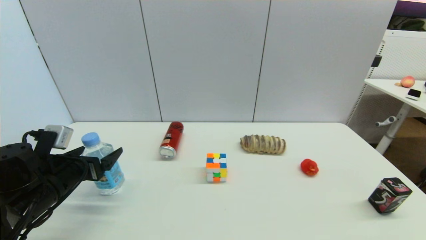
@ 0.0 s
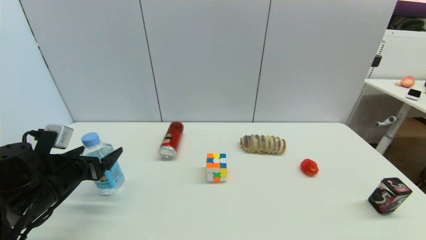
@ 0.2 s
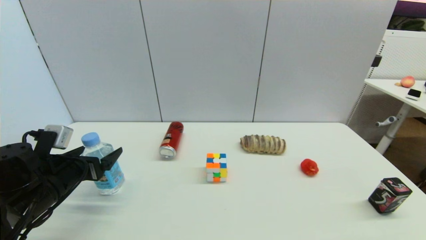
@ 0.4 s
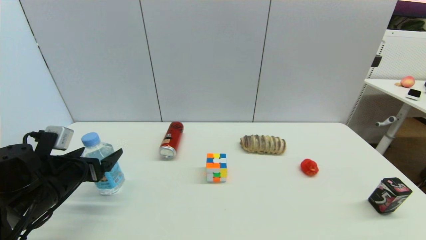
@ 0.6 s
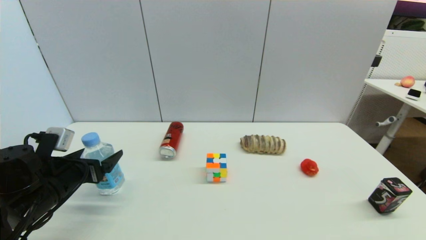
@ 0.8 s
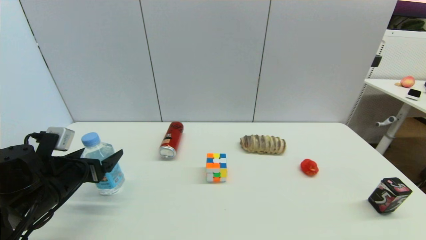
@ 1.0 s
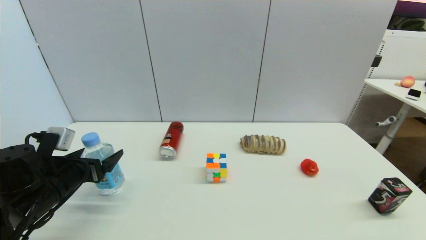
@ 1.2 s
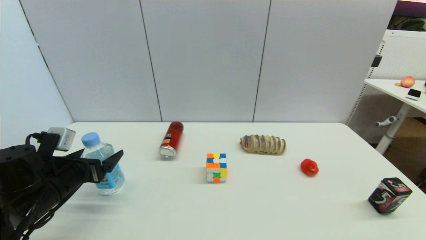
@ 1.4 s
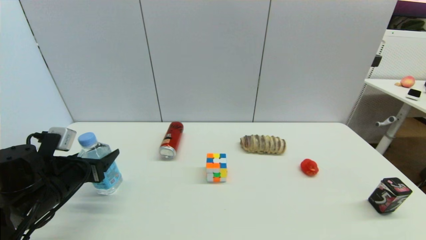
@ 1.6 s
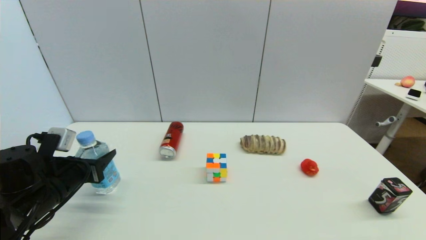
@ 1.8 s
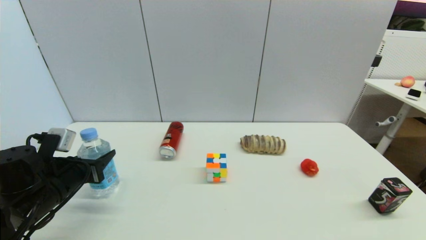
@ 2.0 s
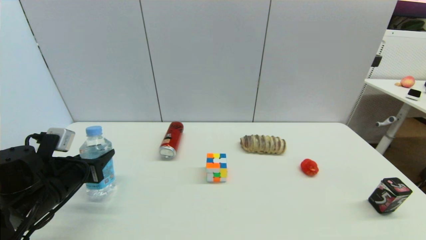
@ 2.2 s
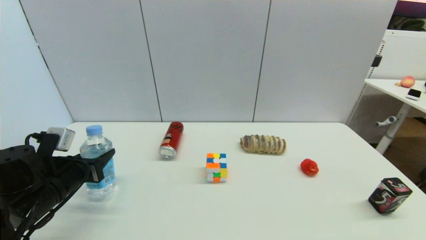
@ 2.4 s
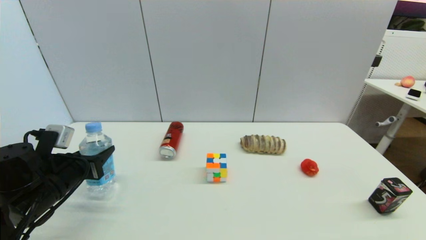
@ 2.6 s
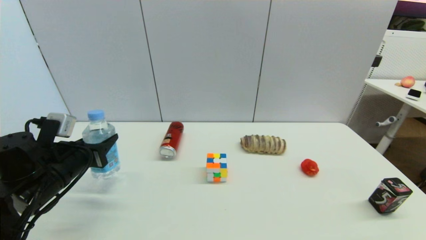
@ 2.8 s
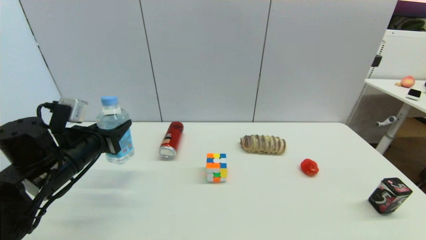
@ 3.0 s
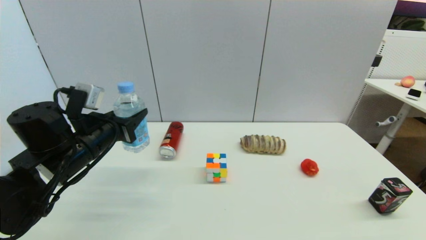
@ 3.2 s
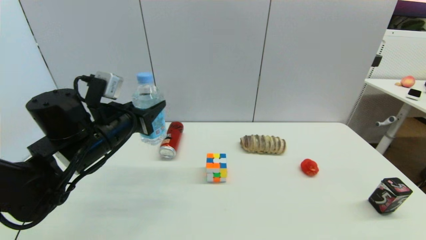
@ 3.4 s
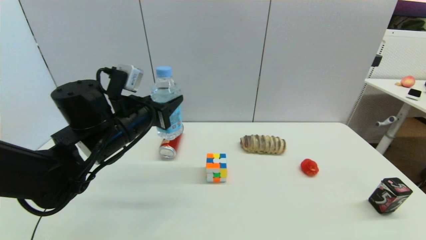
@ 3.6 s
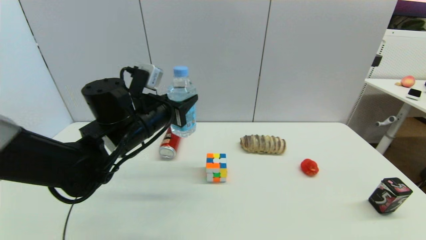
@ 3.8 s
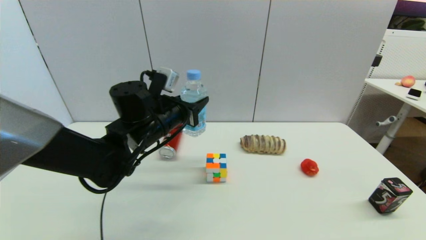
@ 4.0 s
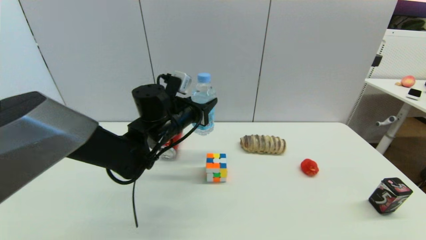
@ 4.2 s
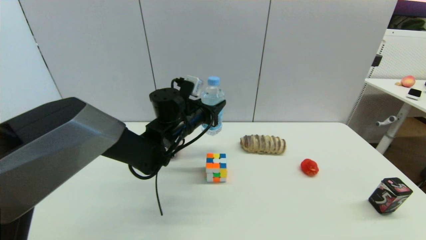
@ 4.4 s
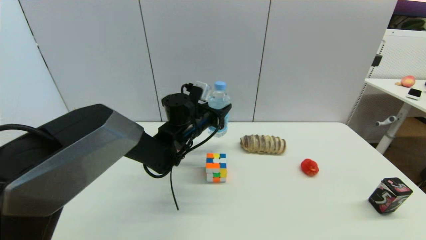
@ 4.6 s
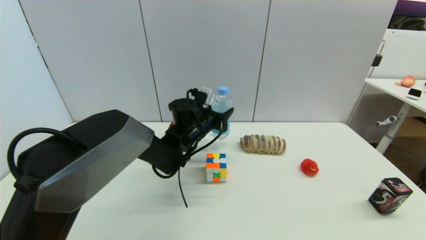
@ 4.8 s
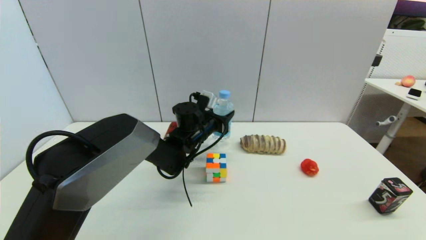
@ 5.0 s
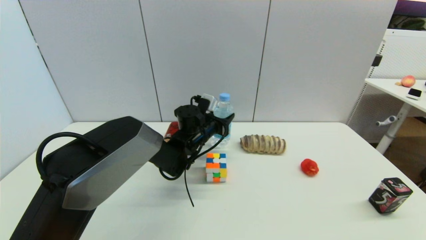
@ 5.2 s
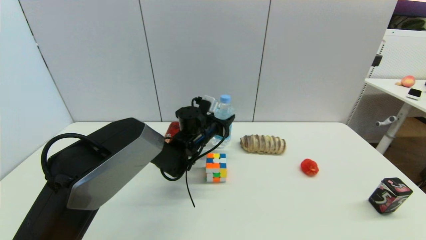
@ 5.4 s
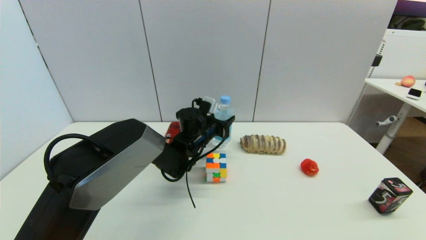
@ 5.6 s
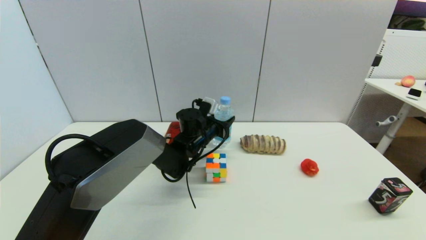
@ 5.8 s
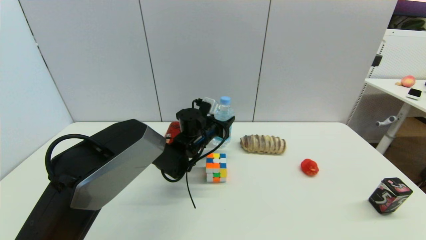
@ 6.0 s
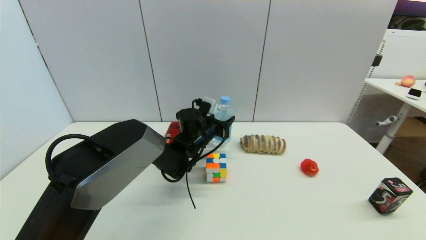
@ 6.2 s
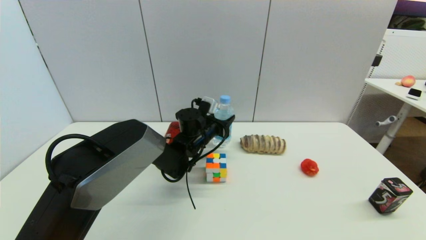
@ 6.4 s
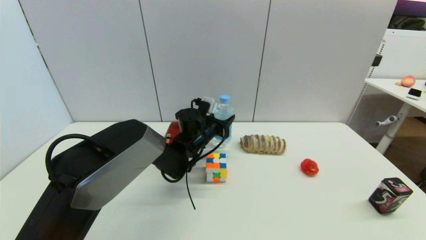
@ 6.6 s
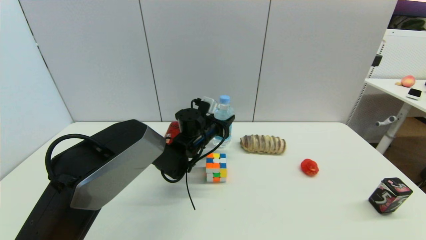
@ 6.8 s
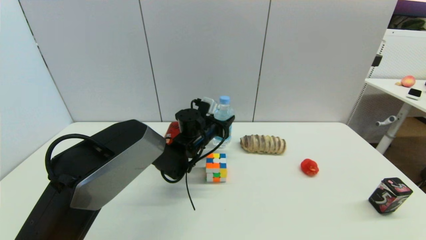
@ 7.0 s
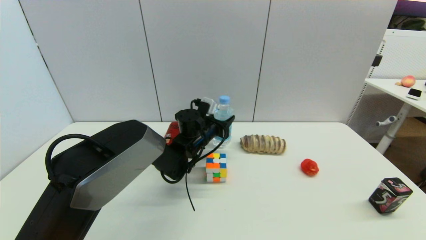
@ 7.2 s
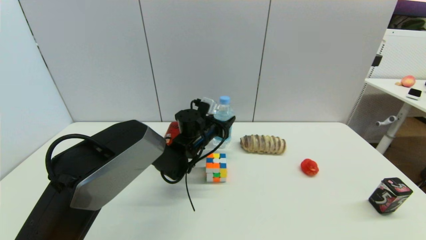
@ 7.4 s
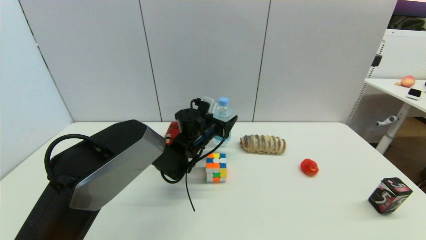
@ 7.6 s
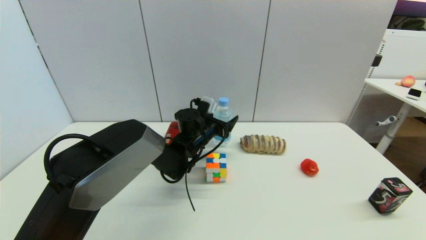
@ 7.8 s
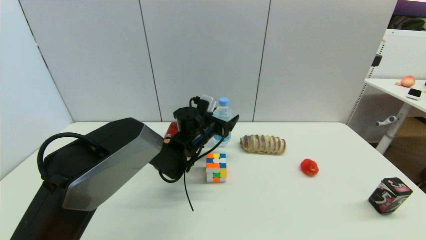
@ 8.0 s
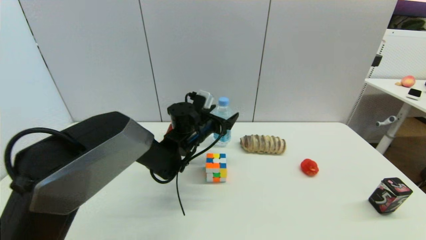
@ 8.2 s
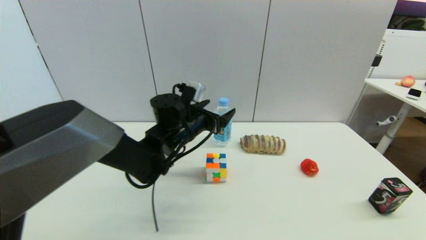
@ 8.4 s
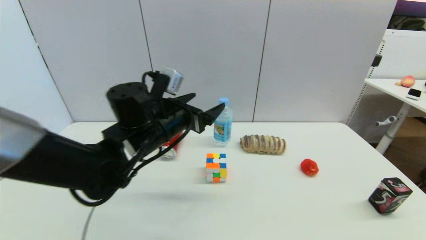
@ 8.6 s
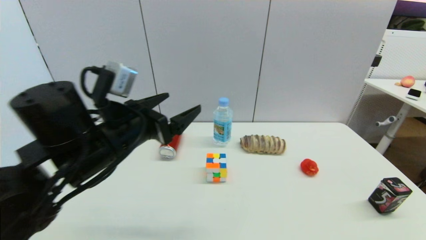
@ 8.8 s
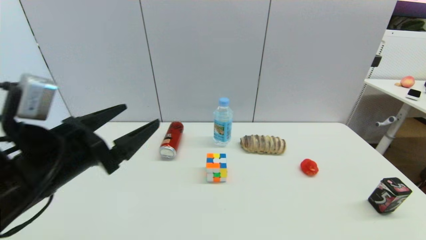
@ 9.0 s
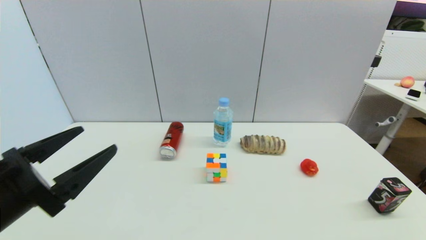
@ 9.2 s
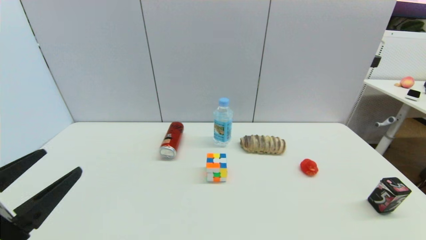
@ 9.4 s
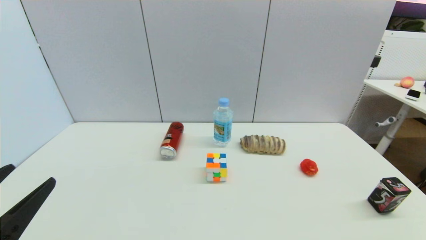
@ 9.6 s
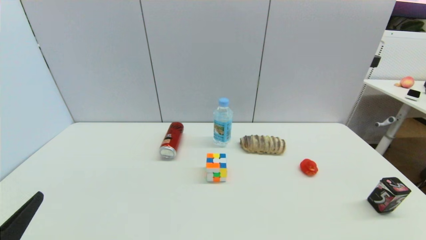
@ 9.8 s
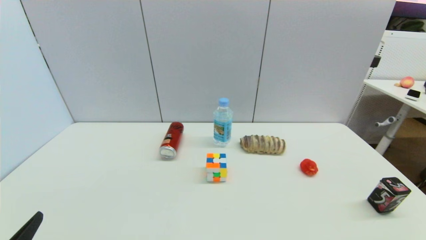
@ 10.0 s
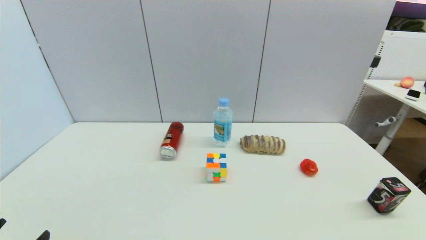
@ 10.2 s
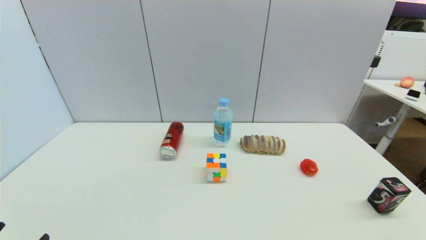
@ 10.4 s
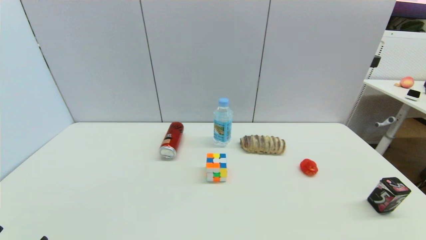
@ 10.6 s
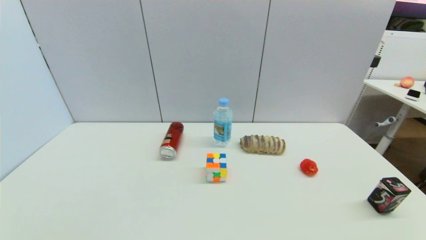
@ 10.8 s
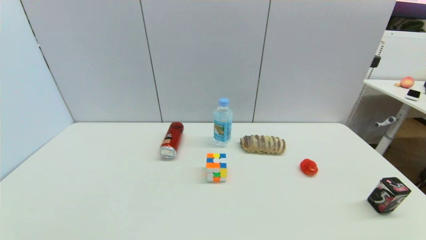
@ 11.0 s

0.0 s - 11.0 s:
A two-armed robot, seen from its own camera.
Step, 2.0 s - 8.0 s: Place the soda water on the table with left gripper.
0.0 s - 1.6 s: The left gripper closes its fingers.
1.6 s - 3.2 s: The left gripper travels upward and to the right by about 10 cm.
3.2 s - 4.8 s: The left gripper moves to the right and forward, roughly 25 cm.
4.8 s - 6.2 s: There are only small adjustments of the grippers.
6.2 s - 7.8 s: The left gripper opens.
7.8 s - 9.4 s: The left gripper shifts approximately 40 cm backward and to the left.
9.4 s - 11.0 s: The left gripper is displaced downward and backward by approximately 15 cm.

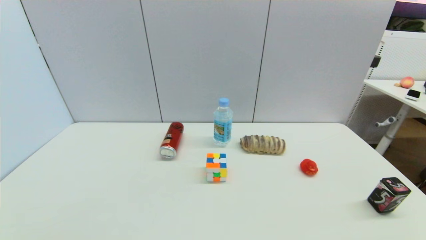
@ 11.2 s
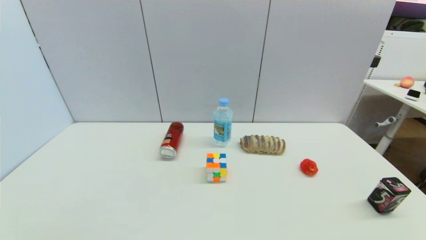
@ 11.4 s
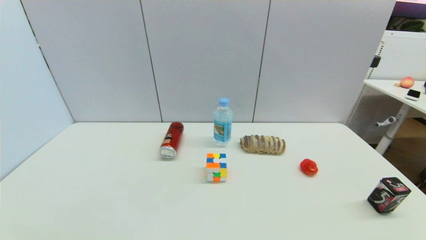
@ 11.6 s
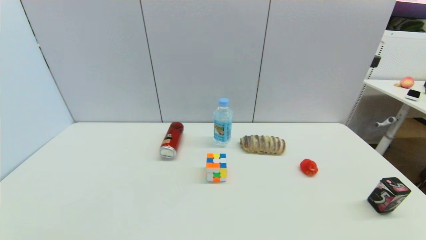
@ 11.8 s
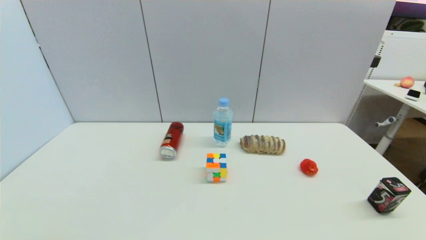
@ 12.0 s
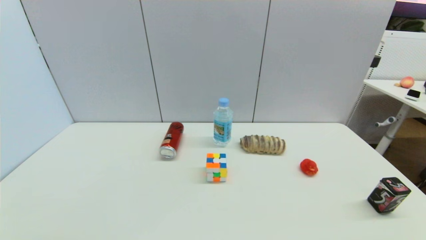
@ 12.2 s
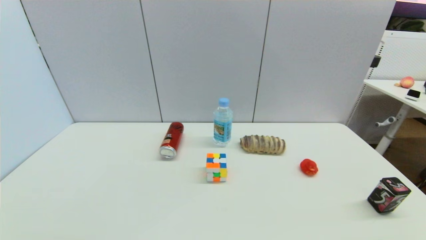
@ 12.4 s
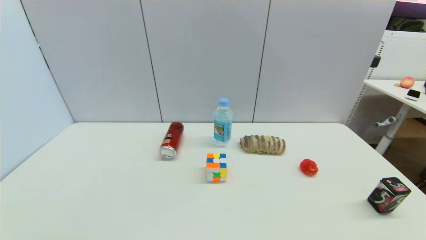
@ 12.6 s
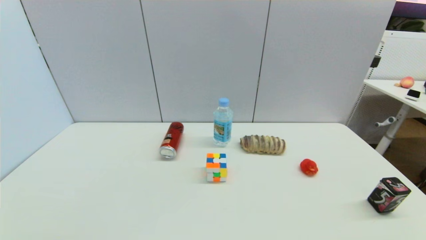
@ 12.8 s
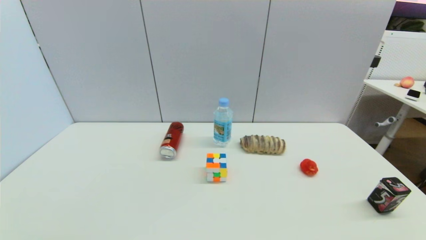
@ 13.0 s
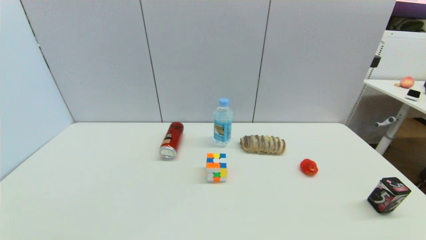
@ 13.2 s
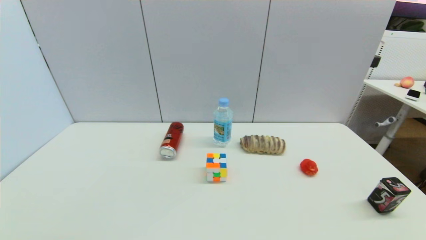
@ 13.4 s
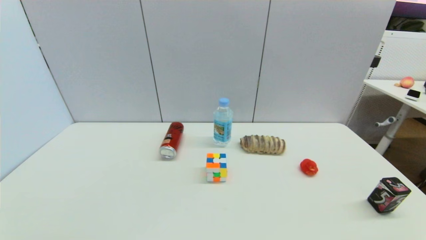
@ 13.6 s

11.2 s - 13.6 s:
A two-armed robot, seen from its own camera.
12.4 s - 13.6 s: Both grippers stay put.
